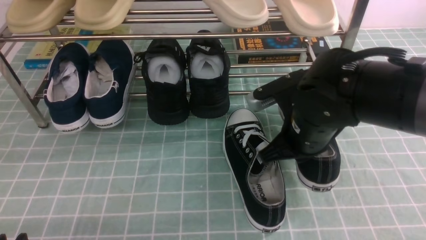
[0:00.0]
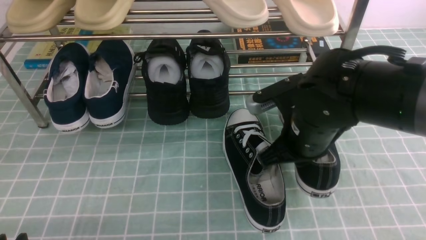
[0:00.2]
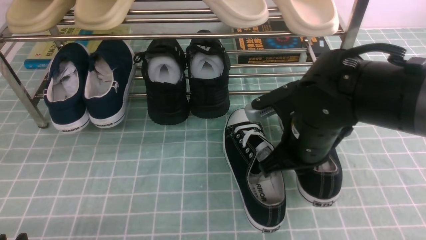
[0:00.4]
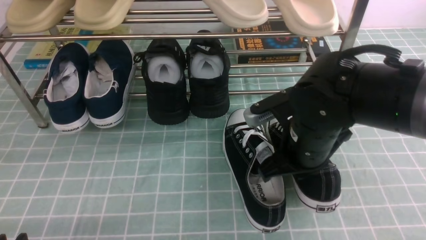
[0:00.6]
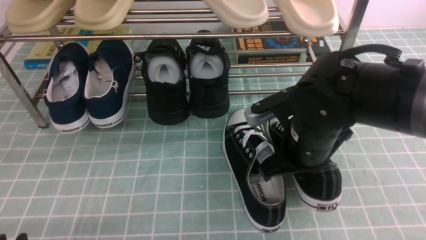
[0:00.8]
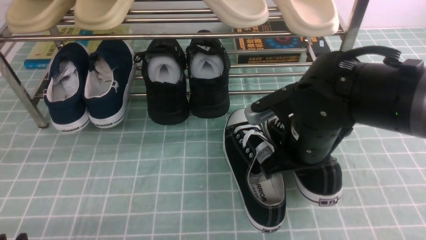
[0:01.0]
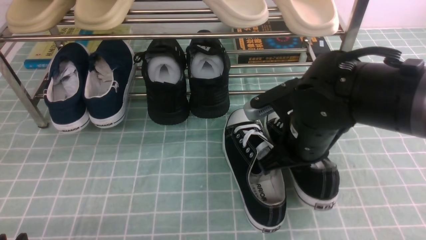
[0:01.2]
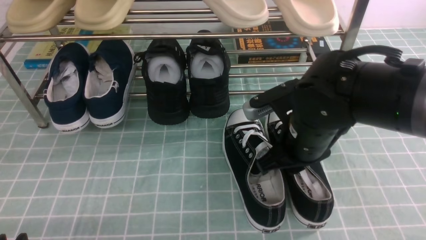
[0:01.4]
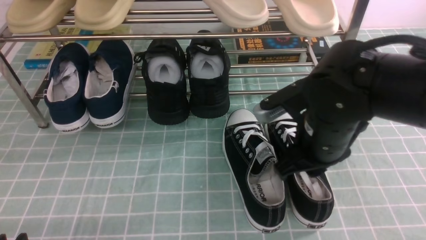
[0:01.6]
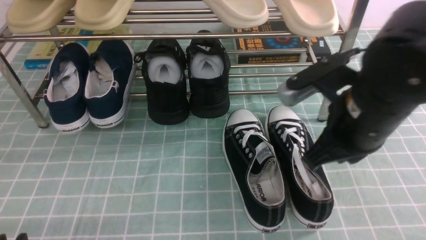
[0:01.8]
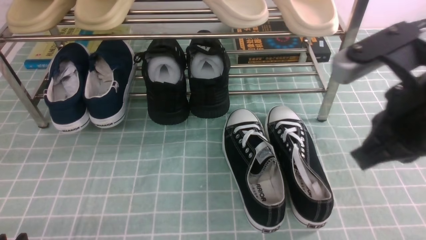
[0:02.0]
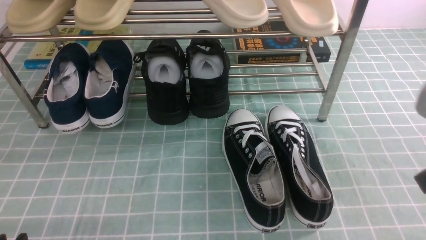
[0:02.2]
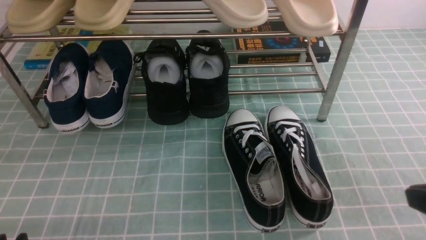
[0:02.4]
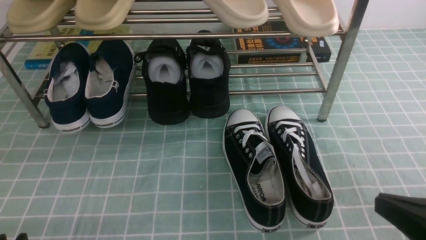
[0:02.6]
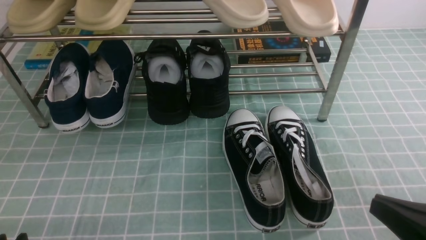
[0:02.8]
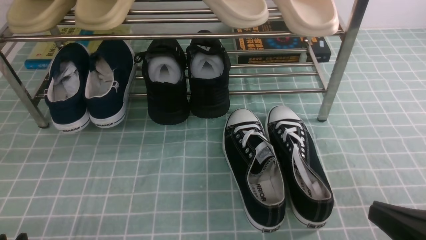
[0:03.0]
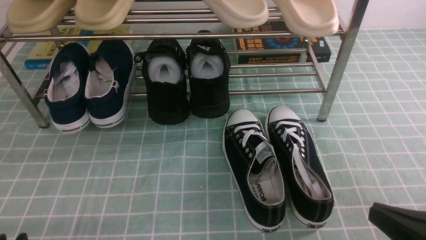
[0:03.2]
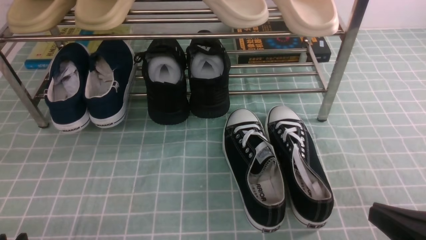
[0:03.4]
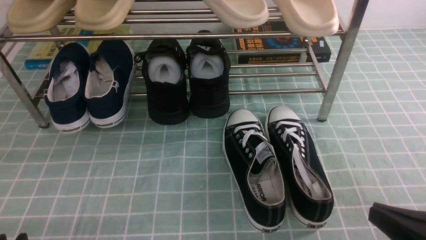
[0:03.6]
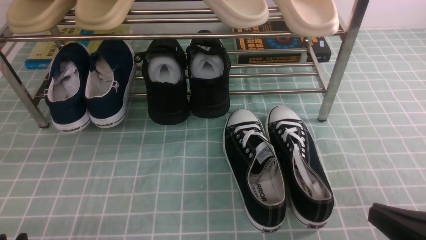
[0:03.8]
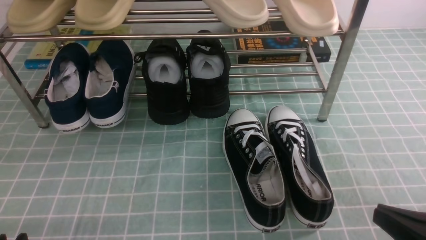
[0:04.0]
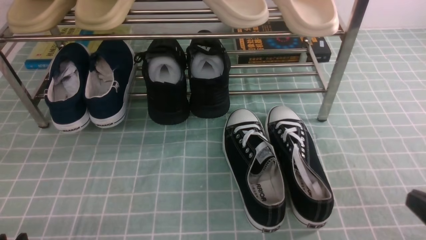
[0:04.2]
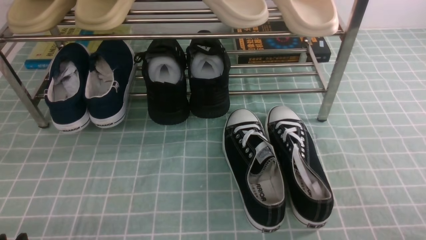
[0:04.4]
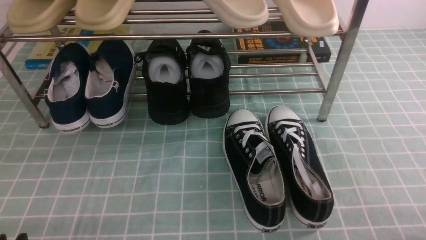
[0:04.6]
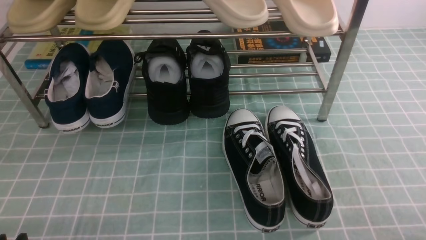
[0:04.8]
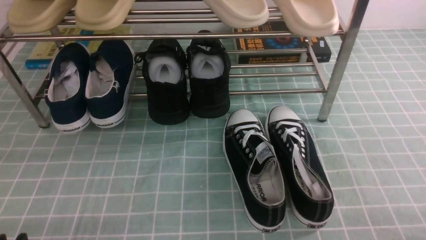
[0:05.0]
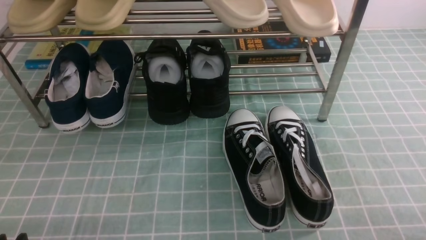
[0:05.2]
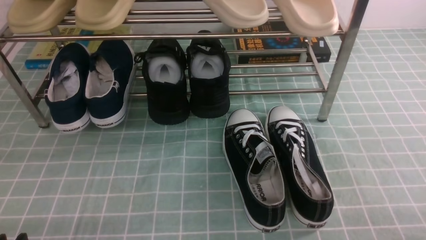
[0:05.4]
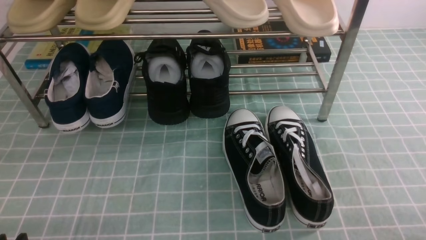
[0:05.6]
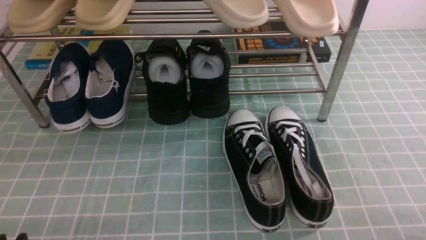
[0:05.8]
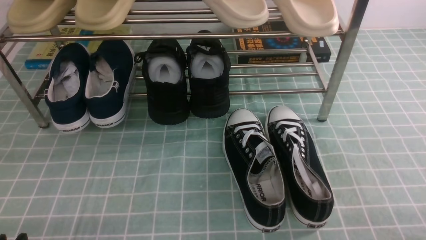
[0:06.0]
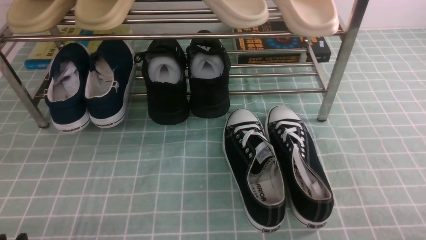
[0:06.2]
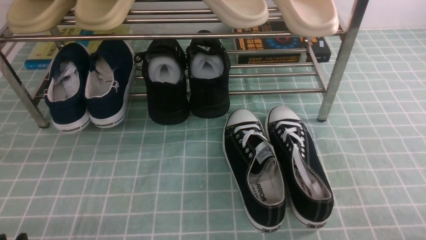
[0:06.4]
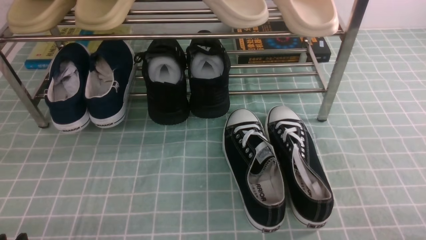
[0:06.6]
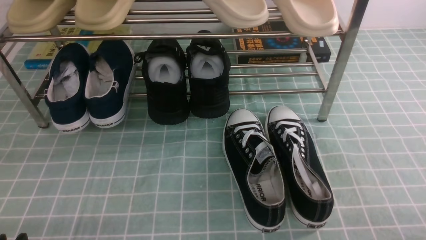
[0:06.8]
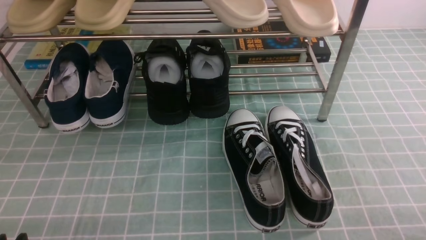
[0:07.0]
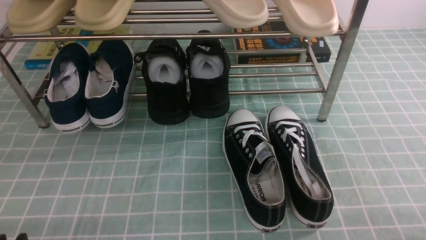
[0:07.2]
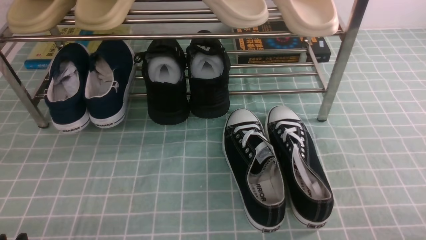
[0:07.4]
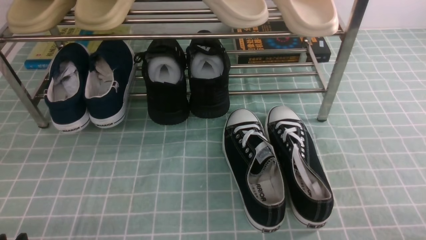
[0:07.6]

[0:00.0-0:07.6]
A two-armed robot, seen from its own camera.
0:00.0 to 0:01.6: The right gripper opens up.
0:01.6 to 0:03.0: The right gripper heads backward and to the right, covering some 25 cm, and closes.
0:03.0 to 0:04.6: The right gripper travels to the right by roughly 5 cm.
0:06.0 to 0:07.6: Both grippers stay about where they are.
